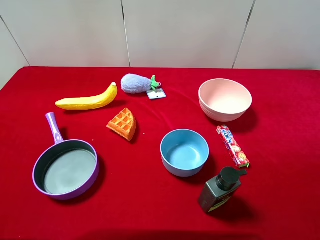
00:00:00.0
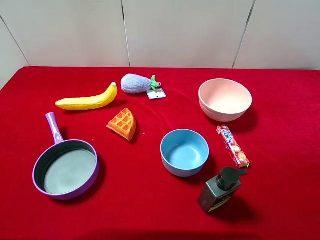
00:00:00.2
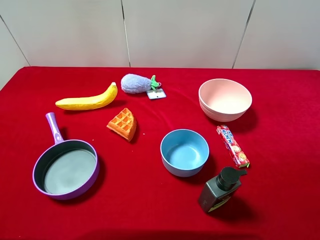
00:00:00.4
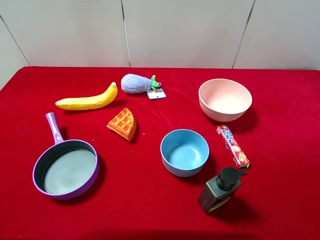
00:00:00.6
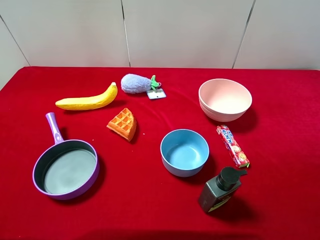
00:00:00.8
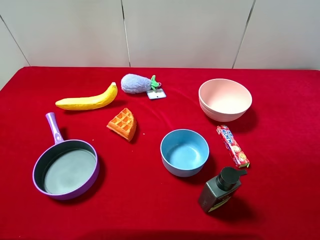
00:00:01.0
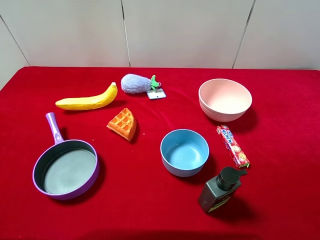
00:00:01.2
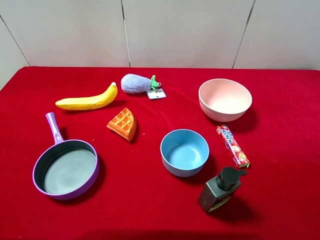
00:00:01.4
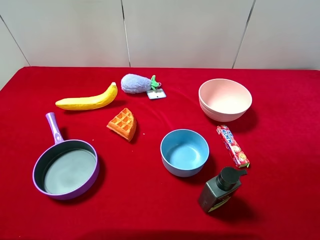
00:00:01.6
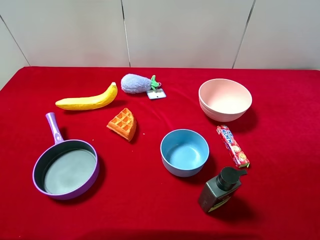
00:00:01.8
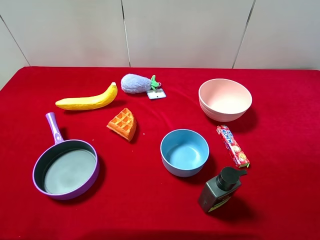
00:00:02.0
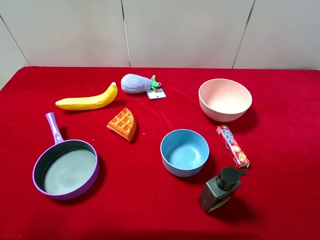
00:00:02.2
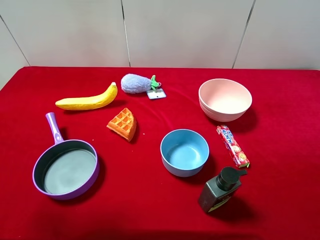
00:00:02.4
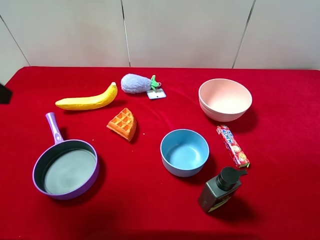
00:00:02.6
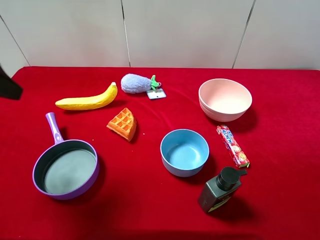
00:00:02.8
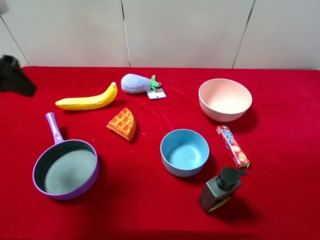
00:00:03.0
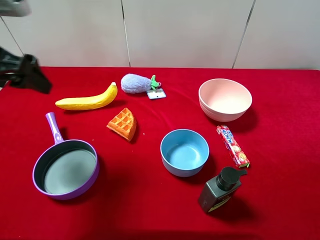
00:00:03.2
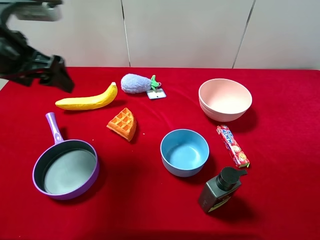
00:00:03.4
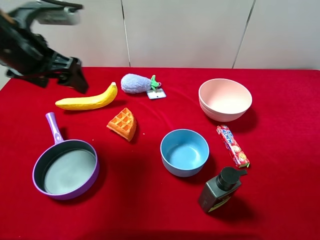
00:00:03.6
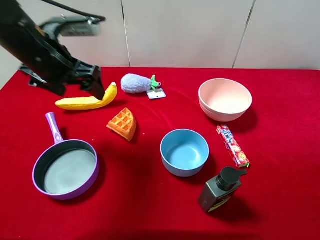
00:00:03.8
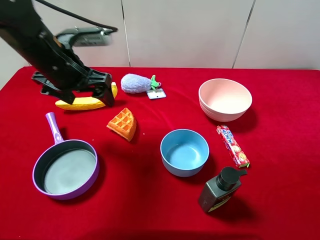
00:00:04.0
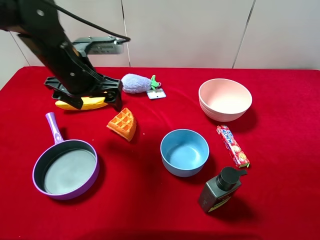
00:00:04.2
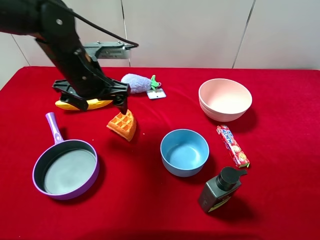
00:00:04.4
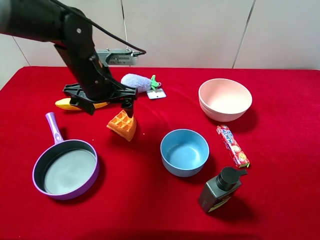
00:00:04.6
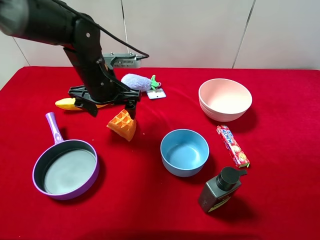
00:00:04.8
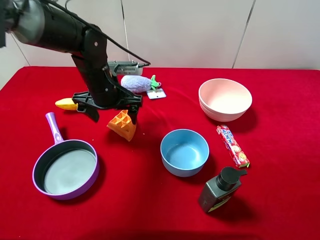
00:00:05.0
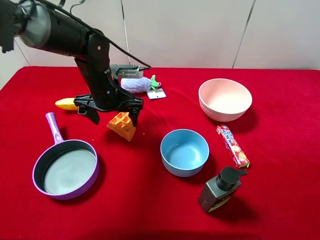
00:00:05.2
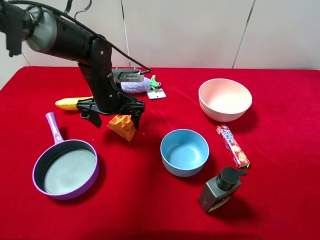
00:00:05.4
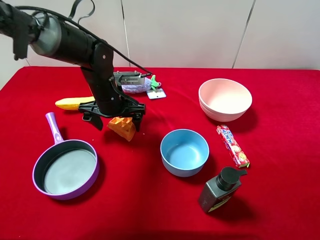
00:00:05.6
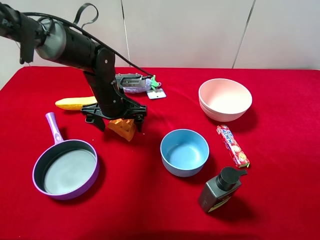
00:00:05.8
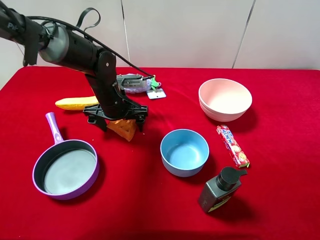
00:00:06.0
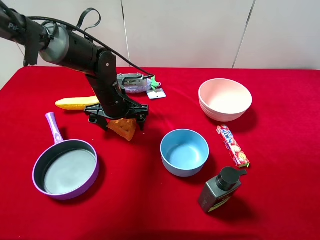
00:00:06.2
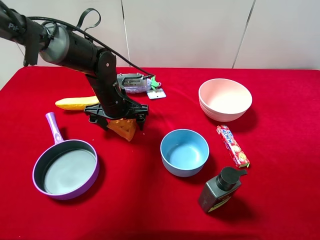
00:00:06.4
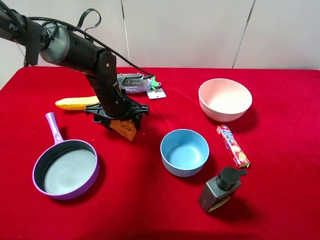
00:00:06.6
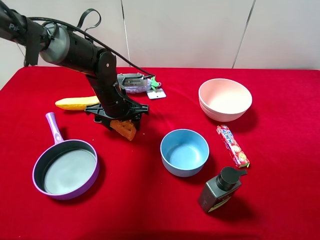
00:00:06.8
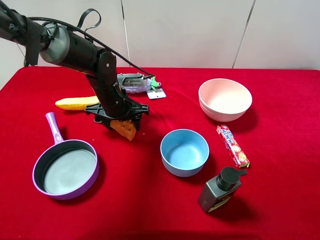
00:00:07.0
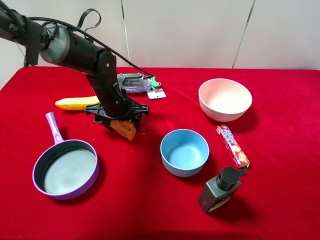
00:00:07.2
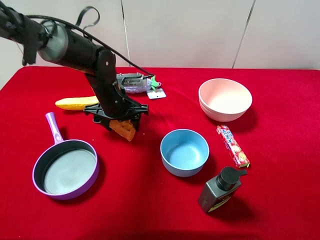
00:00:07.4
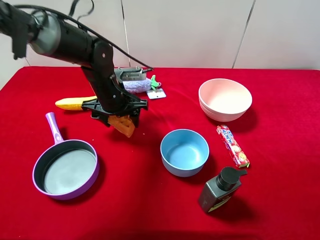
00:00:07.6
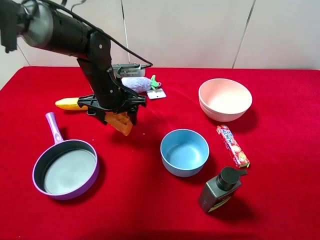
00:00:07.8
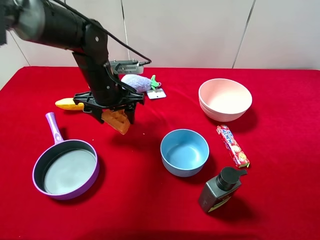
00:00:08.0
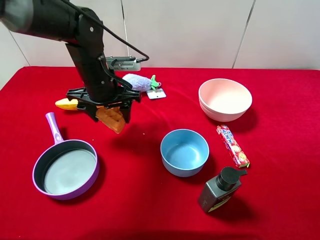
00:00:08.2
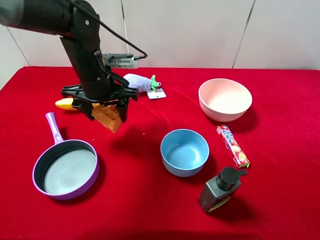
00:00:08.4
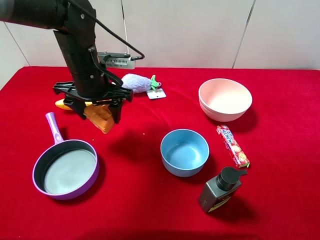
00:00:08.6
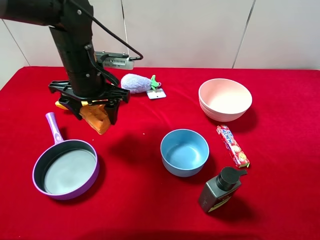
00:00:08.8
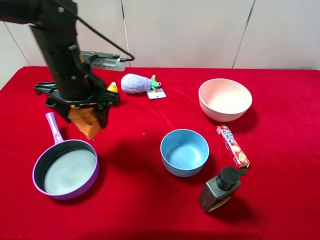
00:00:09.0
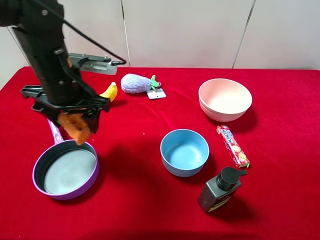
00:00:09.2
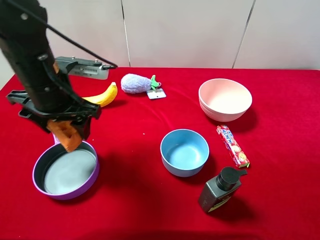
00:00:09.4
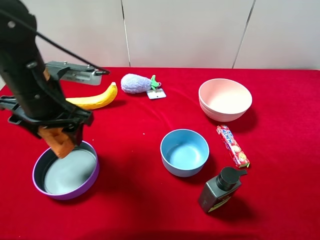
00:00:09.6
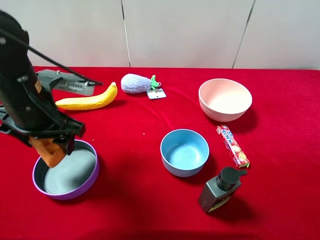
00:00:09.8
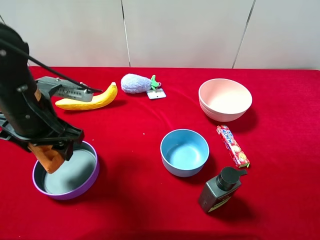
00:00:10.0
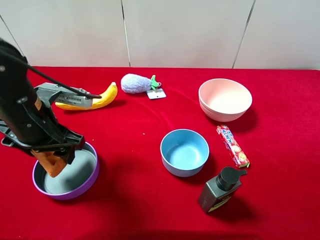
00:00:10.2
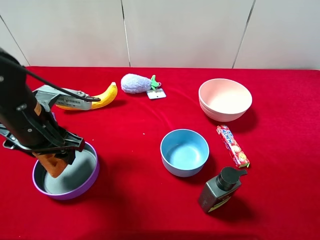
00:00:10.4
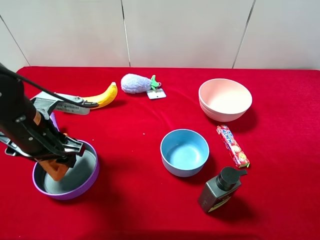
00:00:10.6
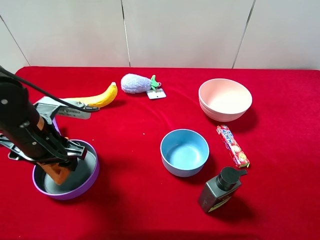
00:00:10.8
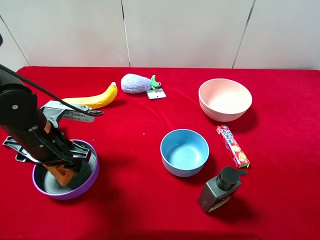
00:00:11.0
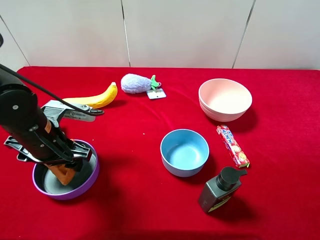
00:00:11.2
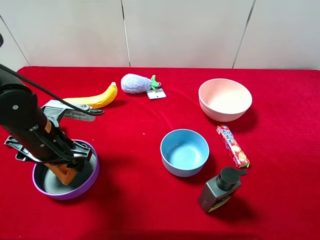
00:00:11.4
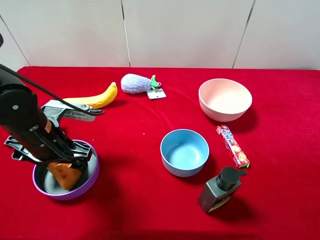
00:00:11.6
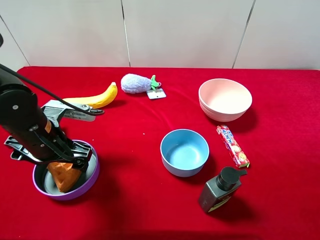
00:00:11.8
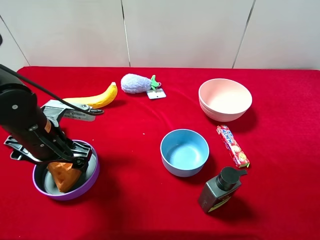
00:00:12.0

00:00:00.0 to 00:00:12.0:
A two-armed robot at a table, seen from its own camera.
Task of the whole recording: pick up an item with a gripper and place it in a random container on the desktop.
00:00:00.0 to 00:00:01.6: The two grippers keep their place.
00:00:01.6 to 00:00:03.0: The left gripper travels forward by approximately 20 cm.
00:00:03.0 to 00:00:04.4: The left gripper goes roughly 20 cm to the right, downward and forward.
00:00:04.4 to 00:00:06.0: The left gripper is displaced downward by about 10 cm.
00:00:06.0 to 00:00:07.6: The left gripper closes its fingers.
00:00:07.6 to 00:00:09.0: The left gripper shifts about 10 cm upward and backward.
00:00:09.0 to 00:00:10.4: The left gripper moves backward and to the left, approximately 10 cm.
00:00:10.4 to 00:00:12.0: The left gripper opens up.

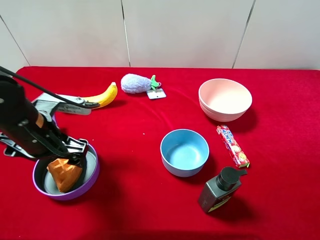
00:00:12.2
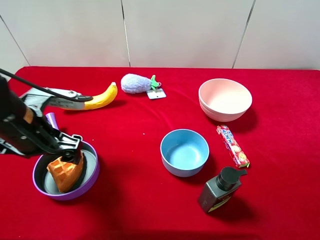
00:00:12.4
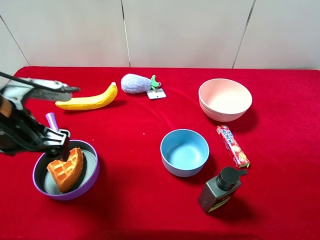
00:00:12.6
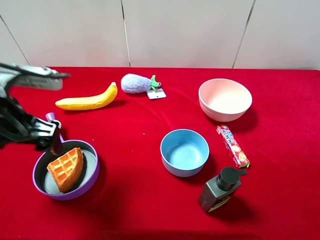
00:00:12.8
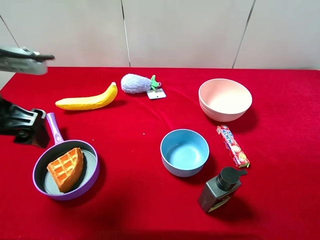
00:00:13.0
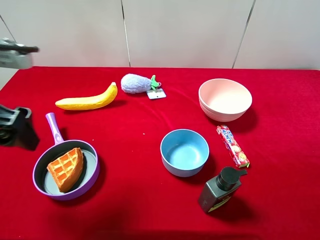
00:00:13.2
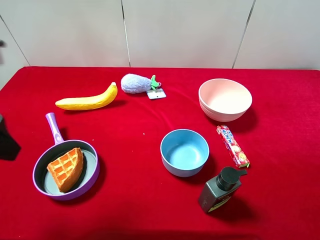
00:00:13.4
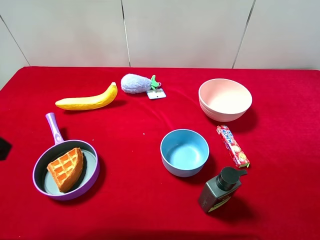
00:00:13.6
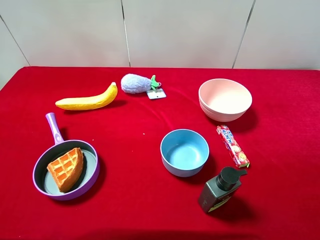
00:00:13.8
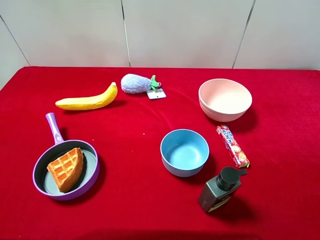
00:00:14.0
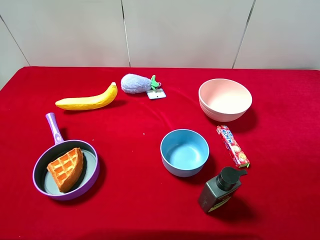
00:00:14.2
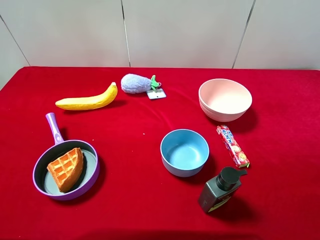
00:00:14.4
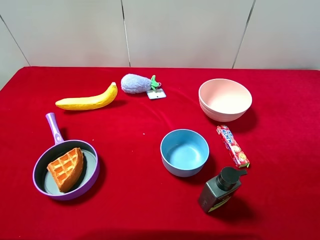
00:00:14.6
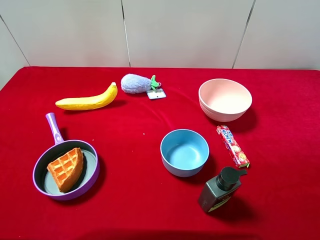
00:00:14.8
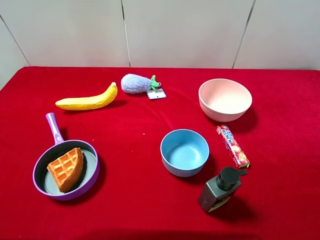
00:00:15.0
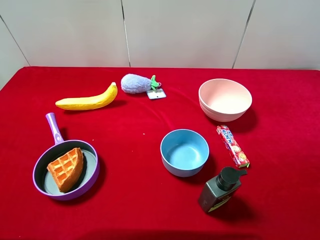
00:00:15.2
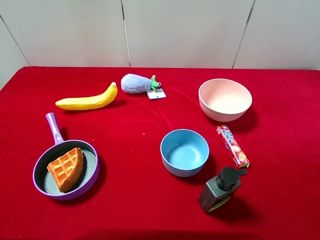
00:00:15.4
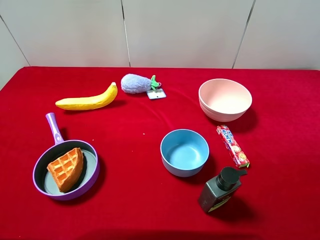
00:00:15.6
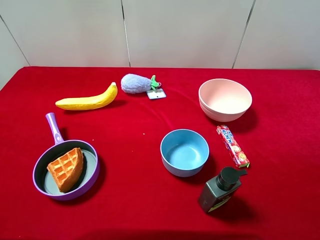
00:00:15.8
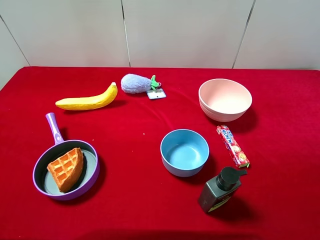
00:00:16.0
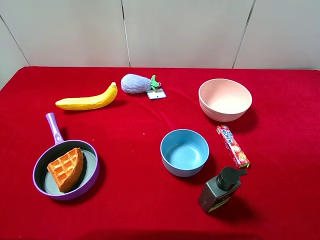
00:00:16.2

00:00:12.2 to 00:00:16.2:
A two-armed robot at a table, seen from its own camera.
Task of the whole recording: pick up an item with a gripper and place it in a random container on the desktop.
00:00:12.2 to 00:00:13.6: The left gripper shifts some 20 cm upward and backward.

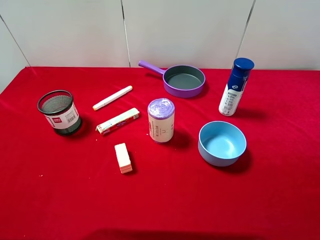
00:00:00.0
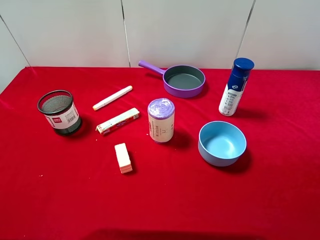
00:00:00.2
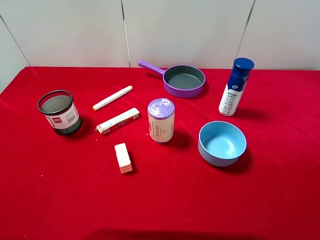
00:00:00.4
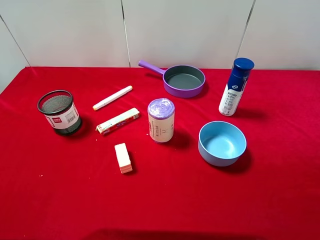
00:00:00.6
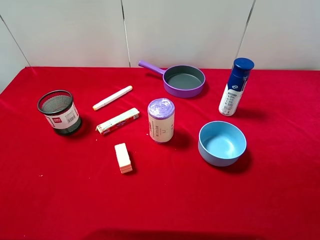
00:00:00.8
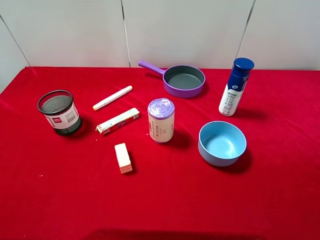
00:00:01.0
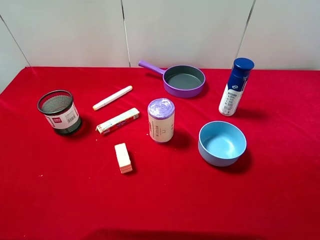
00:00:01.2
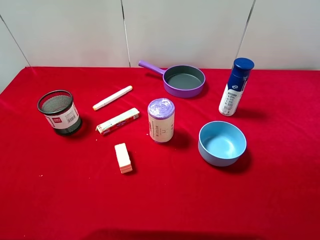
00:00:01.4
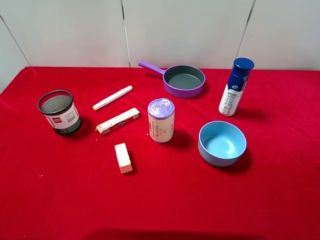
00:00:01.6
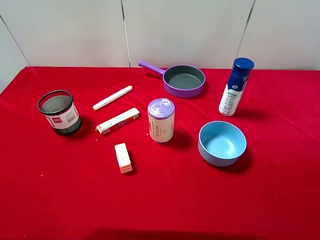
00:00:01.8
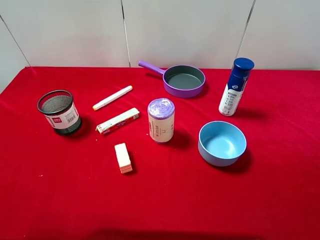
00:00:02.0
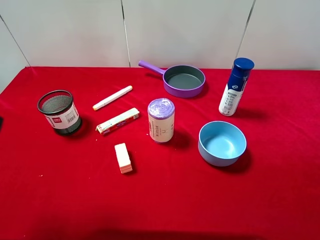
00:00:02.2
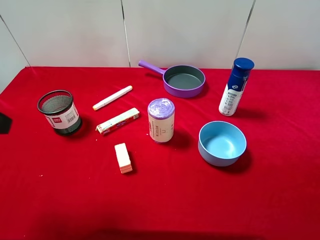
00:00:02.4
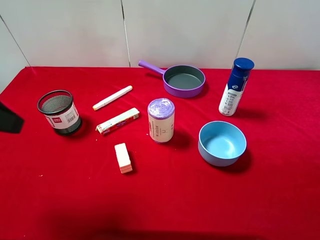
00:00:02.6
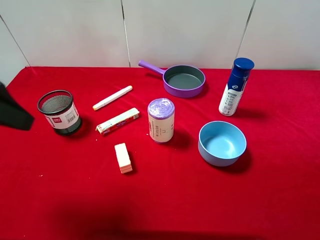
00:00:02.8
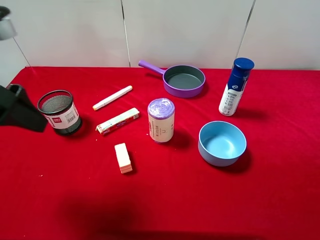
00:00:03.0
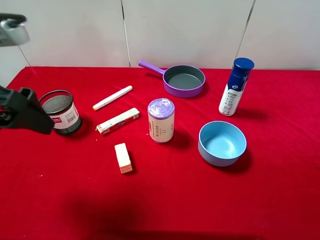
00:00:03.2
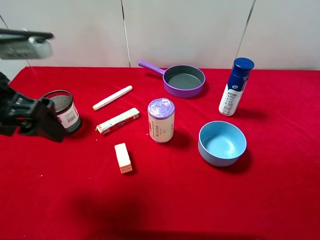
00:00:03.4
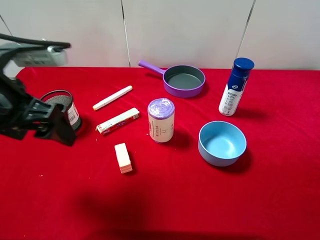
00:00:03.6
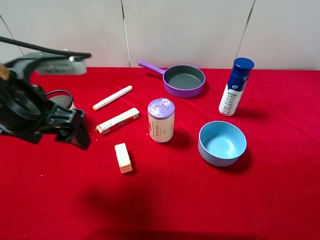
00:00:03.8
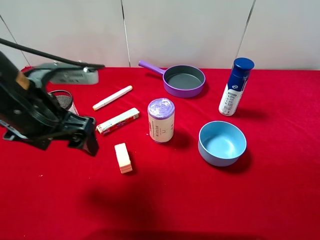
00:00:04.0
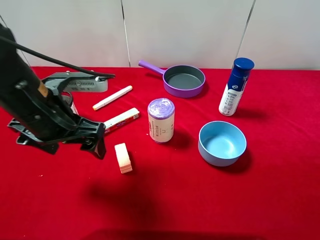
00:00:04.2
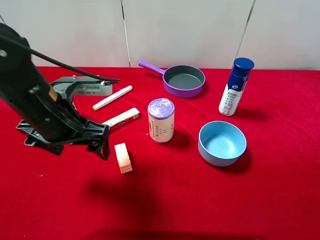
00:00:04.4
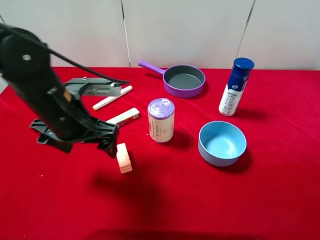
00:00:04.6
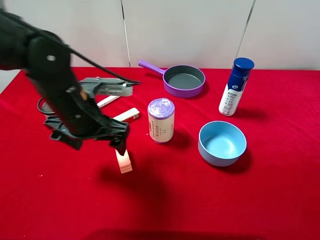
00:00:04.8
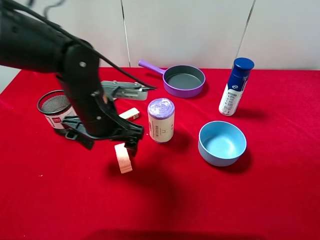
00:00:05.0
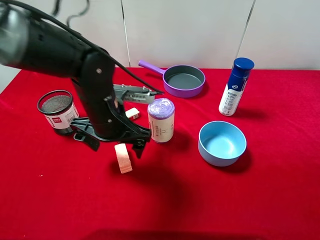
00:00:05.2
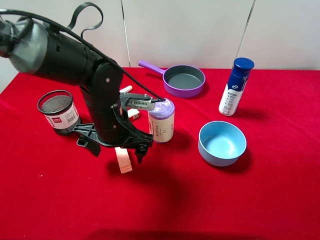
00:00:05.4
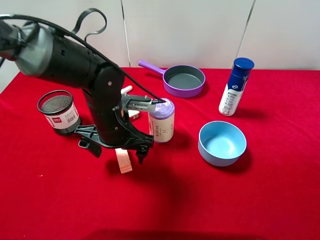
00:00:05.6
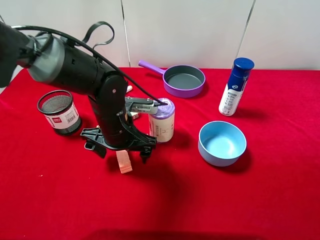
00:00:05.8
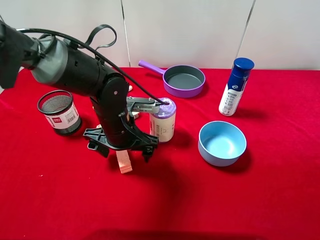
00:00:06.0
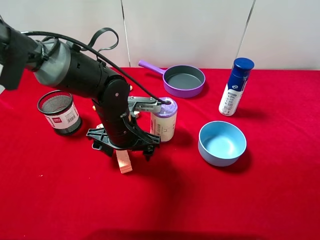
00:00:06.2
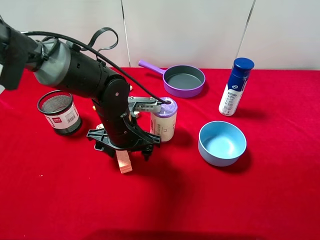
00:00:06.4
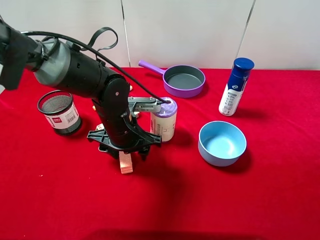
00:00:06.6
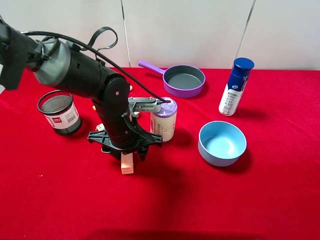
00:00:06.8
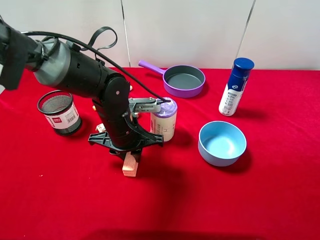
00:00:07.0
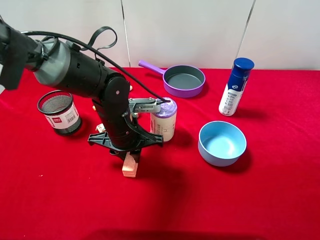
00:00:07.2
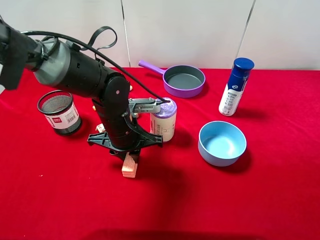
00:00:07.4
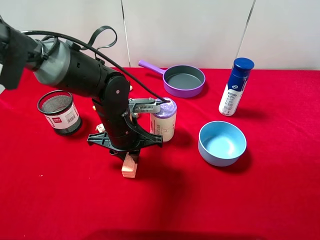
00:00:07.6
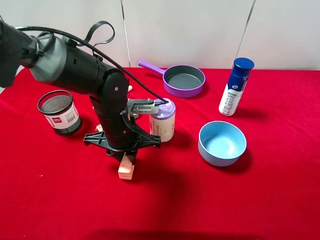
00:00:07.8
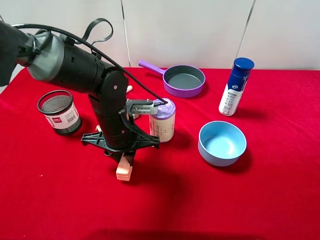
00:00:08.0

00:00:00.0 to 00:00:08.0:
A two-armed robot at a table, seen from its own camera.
Task of the whole recording: pick up an item with a gripper and place it in a random container on the desktop.
00:00:01.6 to 00:00:03.2: The left gripper moves forward and to the right, roughly 15 cm.
00:00:03.2 to 00:00:04.8: The left gripper moves to the right, downward and forward, some 15 cm.
00:00:04.8 to 00:00:06.4: The left gripper shifts some 10 cm downward and to the right.
00:00:06.4 to 00:00:08.0: The left gripper closes.
